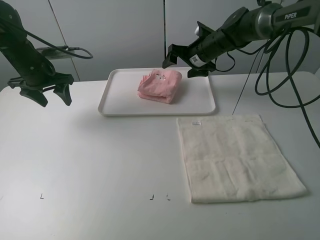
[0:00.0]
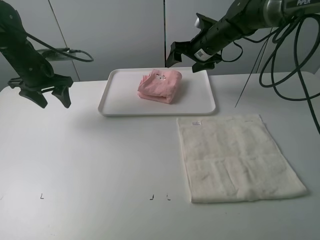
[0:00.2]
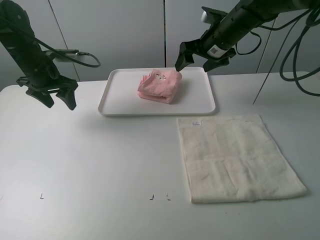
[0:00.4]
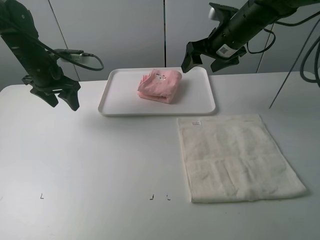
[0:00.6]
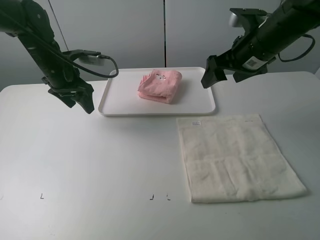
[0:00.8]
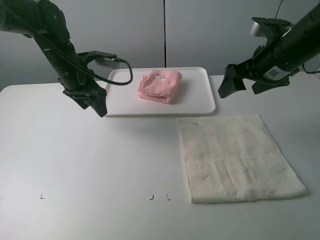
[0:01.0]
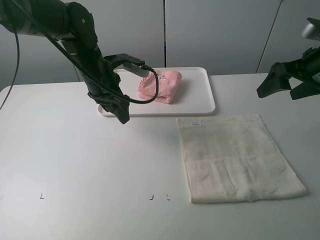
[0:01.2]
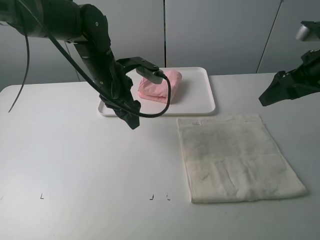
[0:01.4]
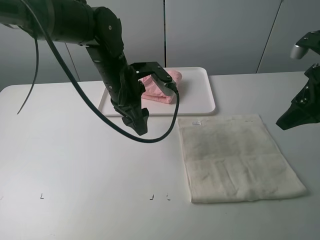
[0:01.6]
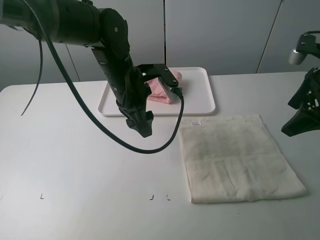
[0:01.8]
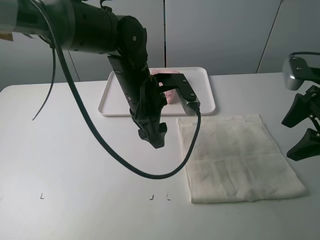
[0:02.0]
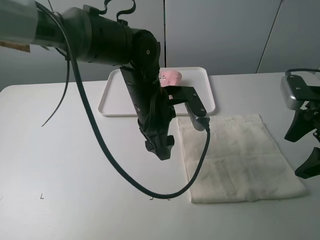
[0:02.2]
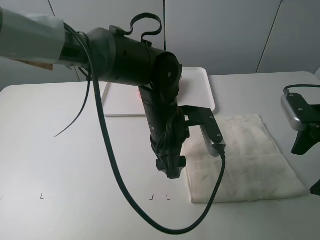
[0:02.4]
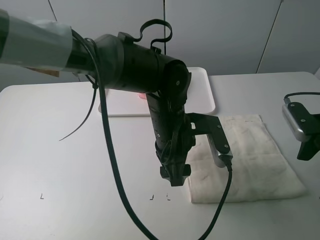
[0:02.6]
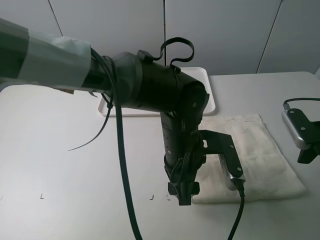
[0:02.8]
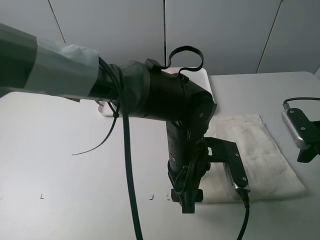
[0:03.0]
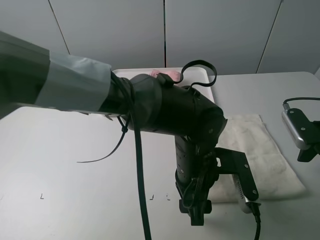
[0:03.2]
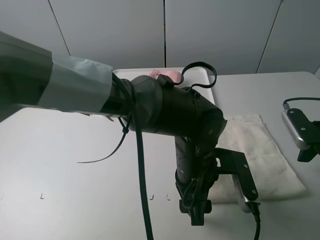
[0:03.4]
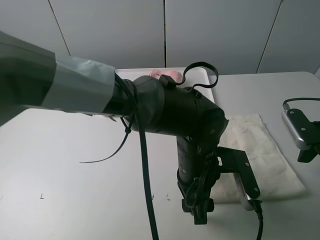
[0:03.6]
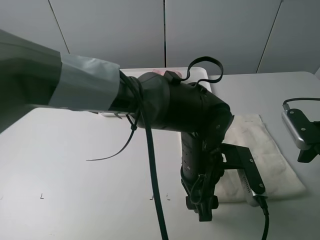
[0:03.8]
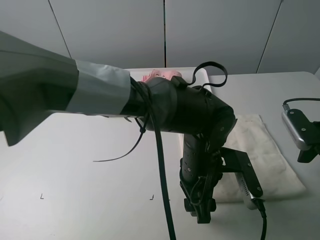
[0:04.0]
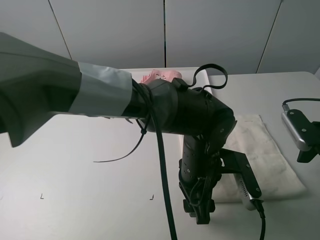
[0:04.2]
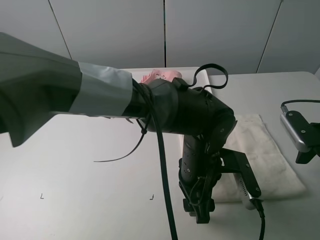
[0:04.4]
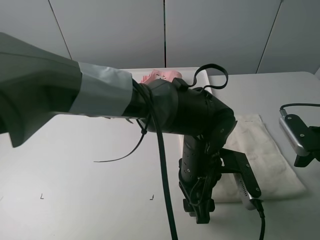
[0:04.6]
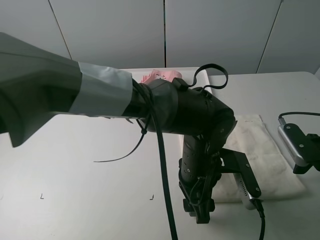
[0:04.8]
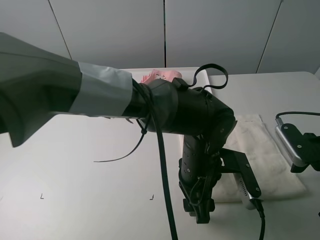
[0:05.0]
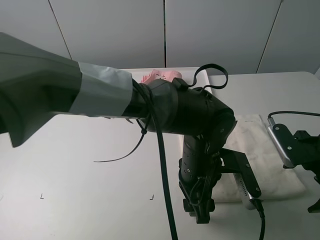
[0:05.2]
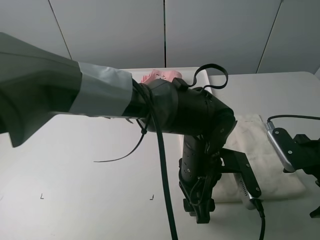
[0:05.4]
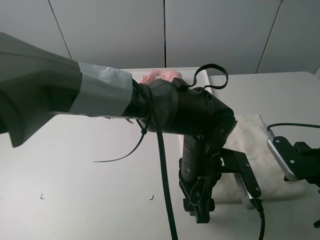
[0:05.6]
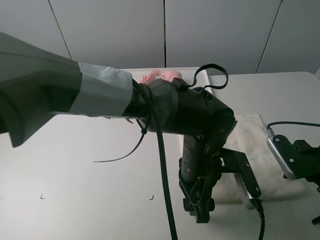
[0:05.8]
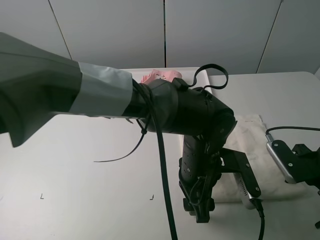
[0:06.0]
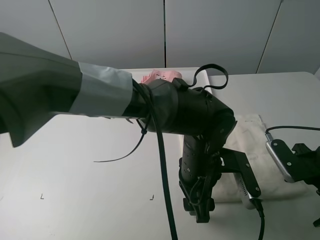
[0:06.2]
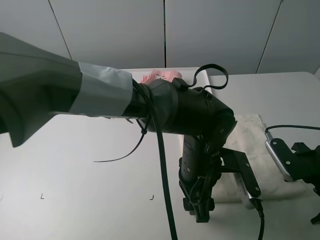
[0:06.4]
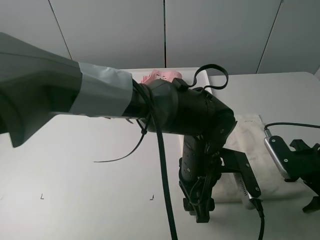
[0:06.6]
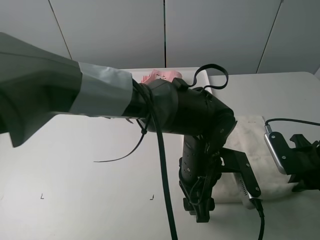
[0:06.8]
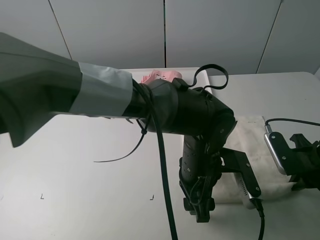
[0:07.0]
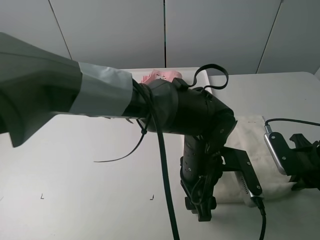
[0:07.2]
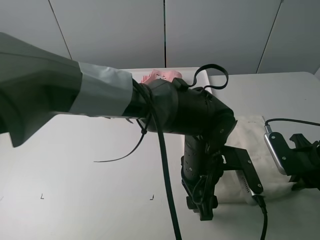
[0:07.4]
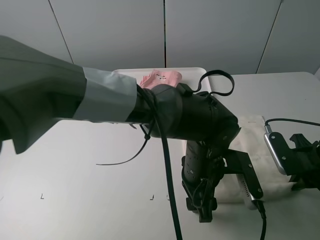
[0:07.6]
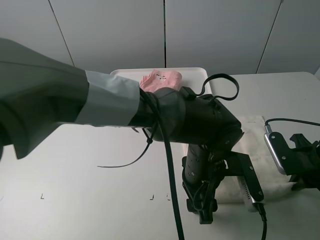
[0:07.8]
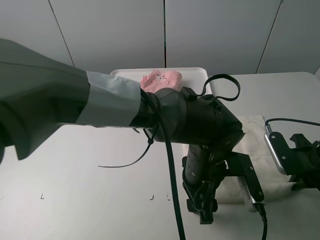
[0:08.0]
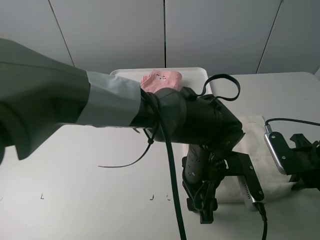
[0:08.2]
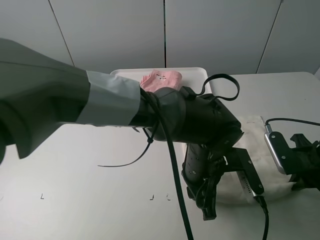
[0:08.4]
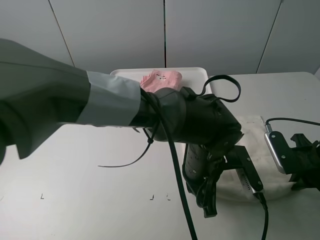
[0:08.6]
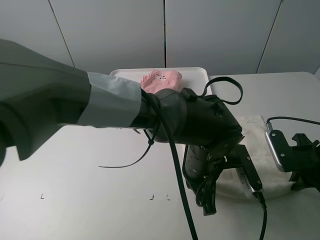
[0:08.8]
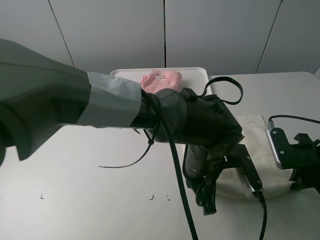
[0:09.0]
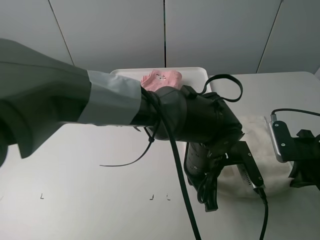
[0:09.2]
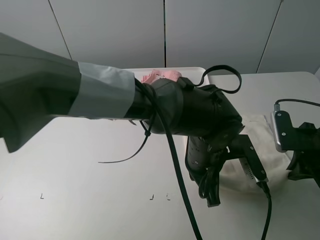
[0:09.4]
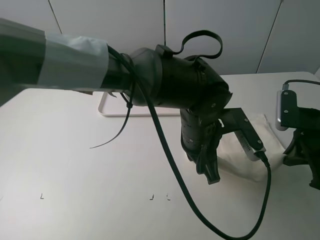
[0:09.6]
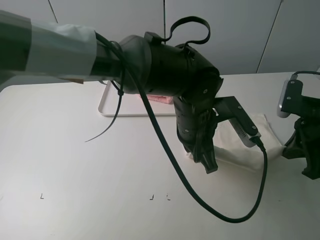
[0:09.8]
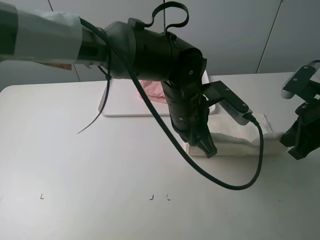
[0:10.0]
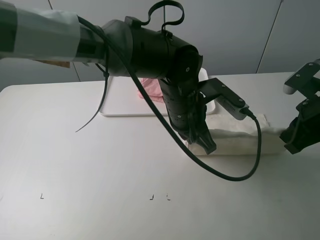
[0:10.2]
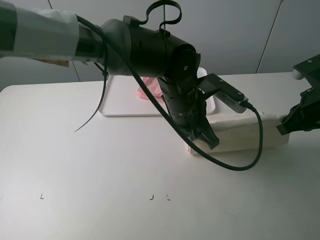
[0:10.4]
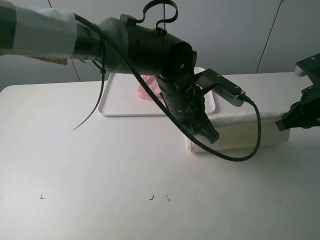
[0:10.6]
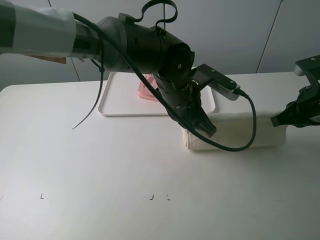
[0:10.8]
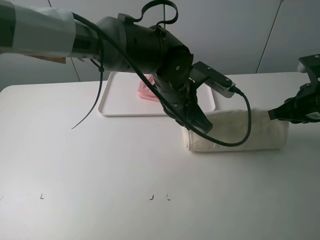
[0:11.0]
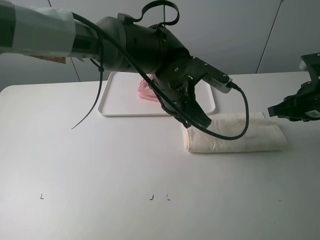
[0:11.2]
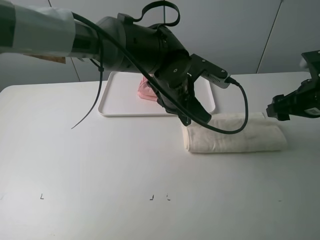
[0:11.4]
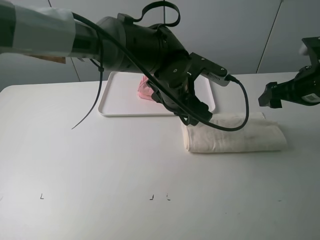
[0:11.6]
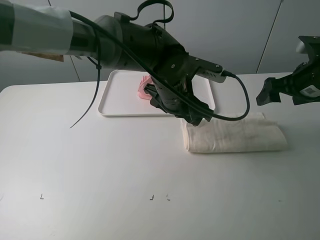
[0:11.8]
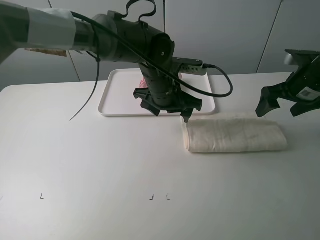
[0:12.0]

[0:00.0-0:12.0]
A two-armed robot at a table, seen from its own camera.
Task of the whole recording: fold one of the towels by two grippers and place it on the tray,then fold another towel by two grippers and place it on the folded towel.
Step, 0.0 to 8.0 s: Grasp the white towel with the left gripper.
Step, 8.4 to 11.4 s: Fold the white towel upwards with the left gripper.
0.0 to 1.6 s: The right gripper moves backward and to the right, some 30 cm. Meanwhile the left gripper heads to the right, covering some 20 cm.
1.6 to 3.0 s: The left gripper moves backward, to the right and downward, about 20 cm, while the right gripper heads downward and backward, covering some 10 cm.
4.4 to 6.0 s: The grippers stay close to where they were, moving slightly.
6.0 to 7.6 s: The right gripper closes its fingers.
7.6 to 9.0 s: The left gripper closes its fingers.
9.0 to 10.4 s: The left gripper is displaced forward and upward by approximately 10 cm. The right gripper heads upward and forward, covering approximately 10 cm.
10.4 to 12.0 s: The grippers both shift forward by some 5 cm. The left gripper opens. Meanwhile the right gripper opens.

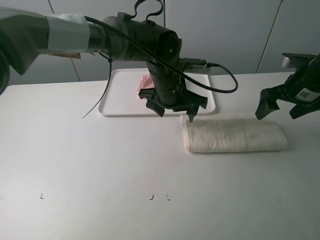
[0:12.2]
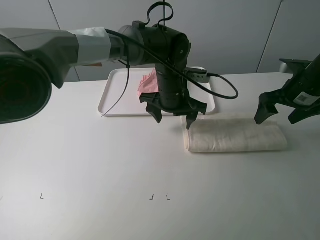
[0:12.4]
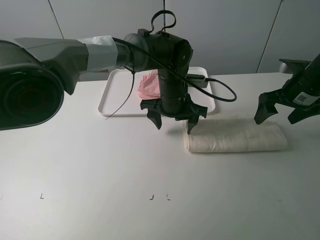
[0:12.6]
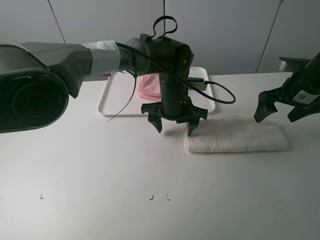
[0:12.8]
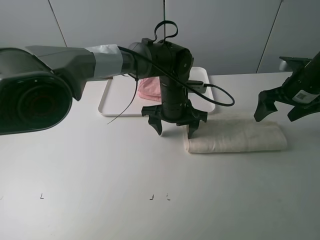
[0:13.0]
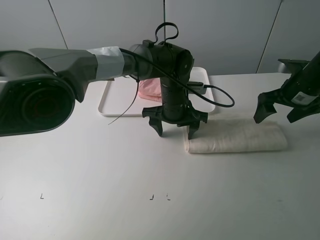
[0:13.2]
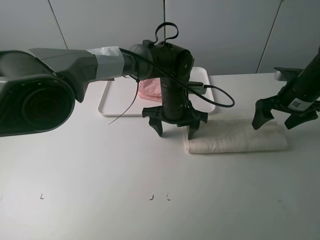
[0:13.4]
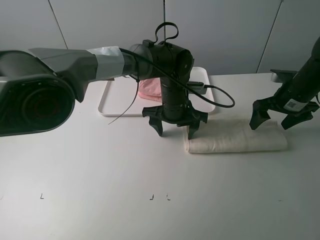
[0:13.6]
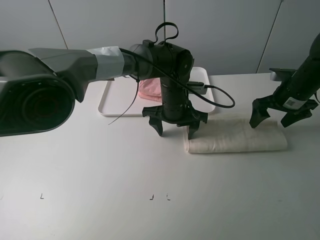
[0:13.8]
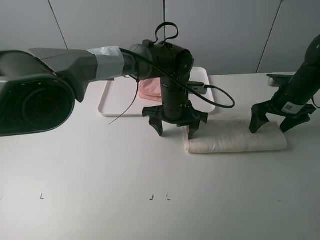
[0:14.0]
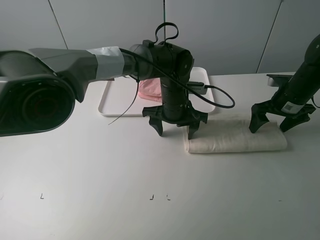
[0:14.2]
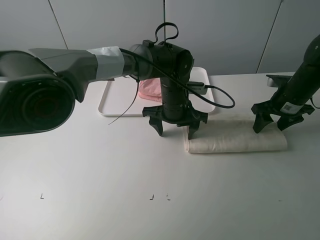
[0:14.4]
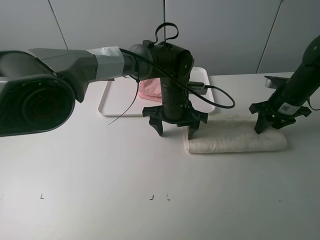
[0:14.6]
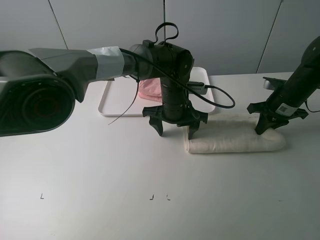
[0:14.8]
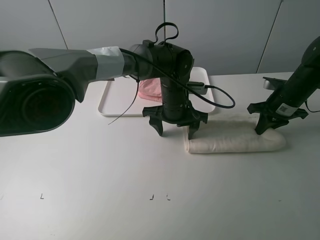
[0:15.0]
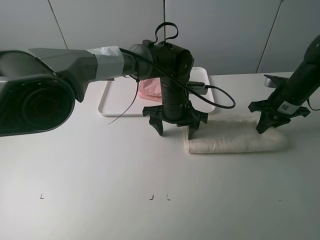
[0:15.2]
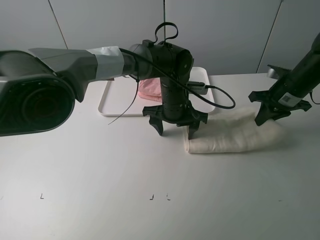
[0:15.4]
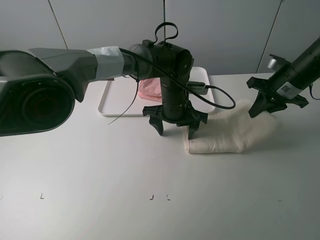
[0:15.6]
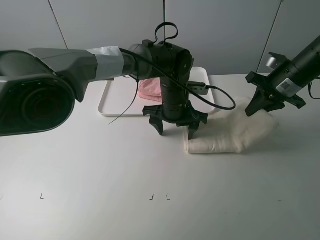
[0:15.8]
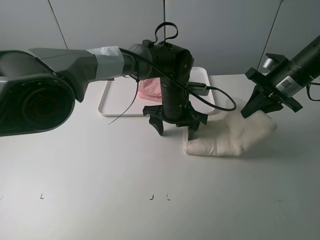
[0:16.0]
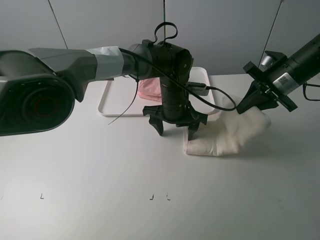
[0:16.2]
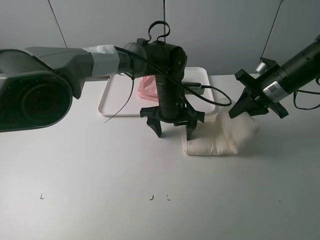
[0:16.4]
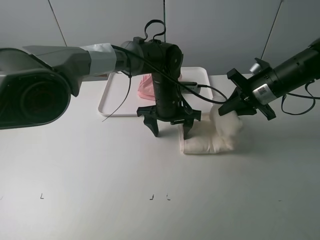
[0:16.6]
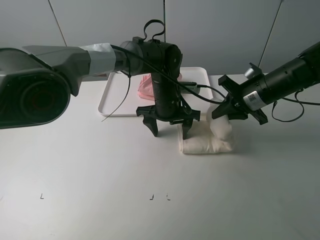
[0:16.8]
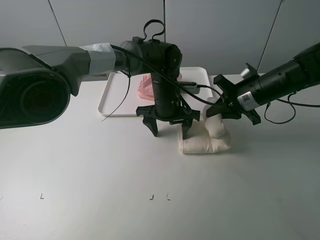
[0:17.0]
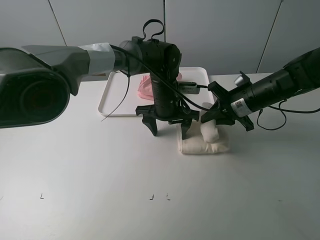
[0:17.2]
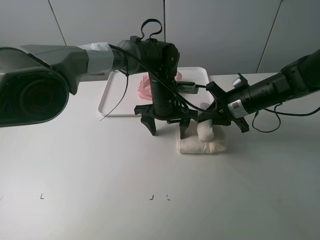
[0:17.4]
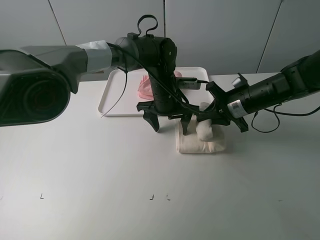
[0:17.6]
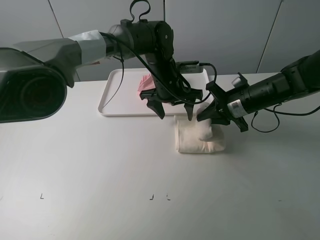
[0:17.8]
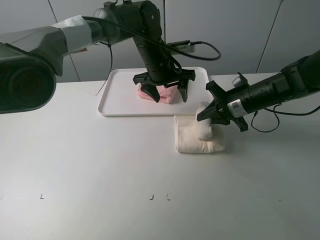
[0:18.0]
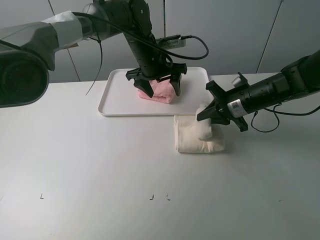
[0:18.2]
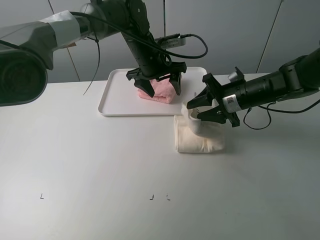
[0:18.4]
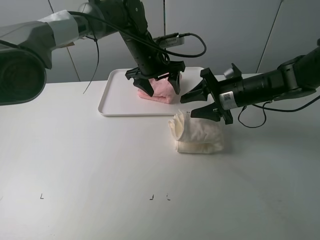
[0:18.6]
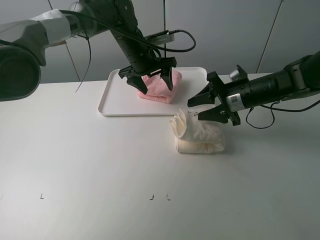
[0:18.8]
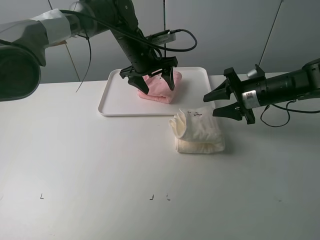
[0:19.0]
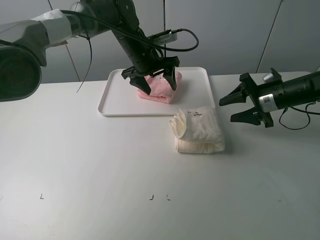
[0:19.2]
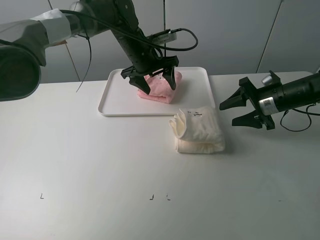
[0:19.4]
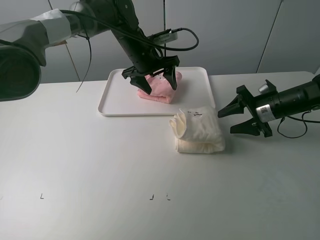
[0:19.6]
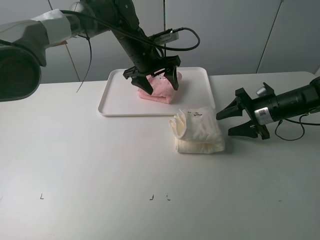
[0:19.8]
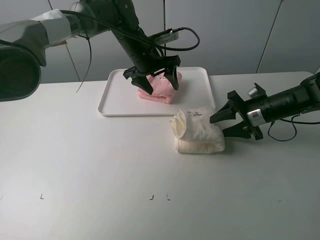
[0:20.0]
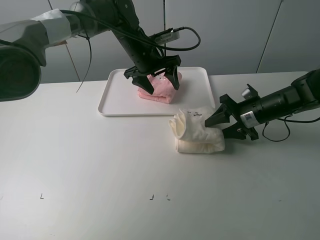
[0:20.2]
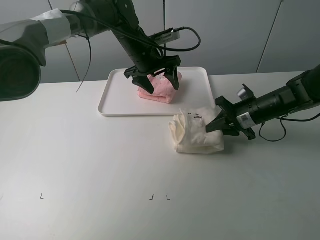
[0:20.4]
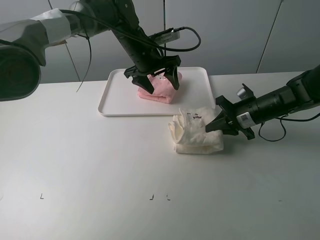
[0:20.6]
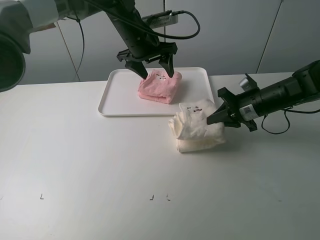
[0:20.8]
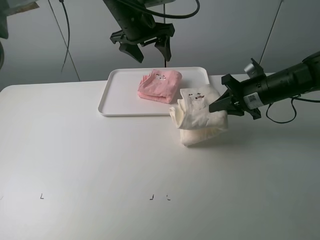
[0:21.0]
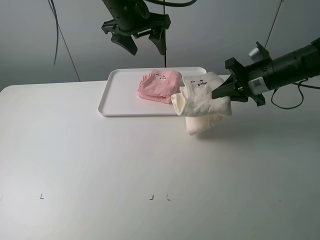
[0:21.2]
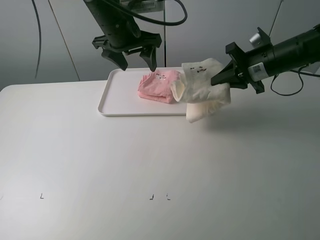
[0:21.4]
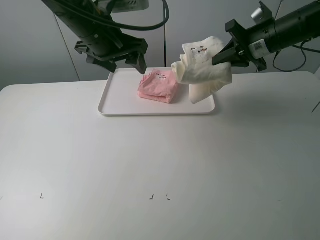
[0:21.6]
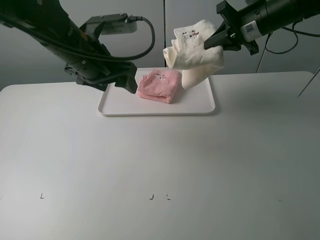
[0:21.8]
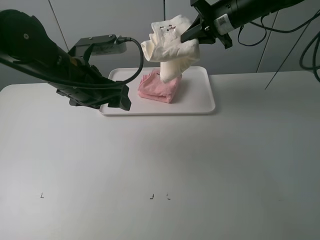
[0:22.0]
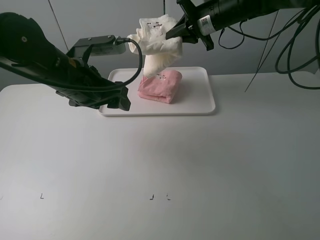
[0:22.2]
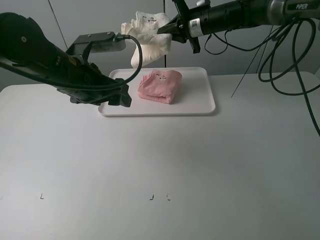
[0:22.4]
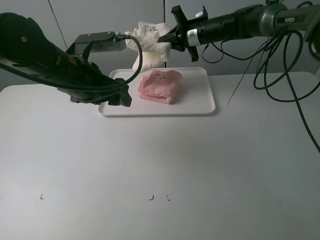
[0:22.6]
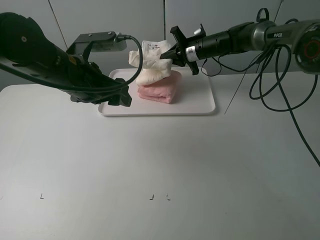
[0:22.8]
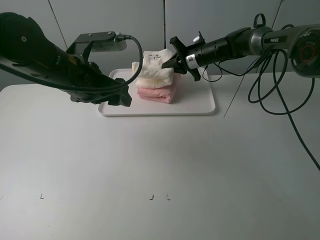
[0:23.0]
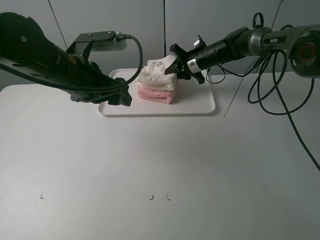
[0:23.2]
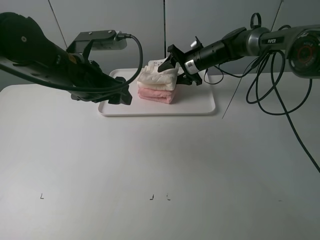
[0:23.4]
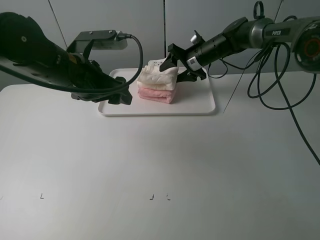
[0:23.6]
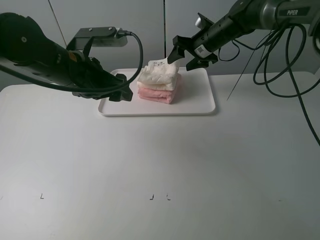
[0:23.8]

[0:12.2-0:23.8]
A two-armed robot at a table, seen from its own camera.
Task of the whole recording: fold one of the towels by two grippers and place it on the tray,then fold another towel by two grippers and place it on the folded towel.
Step, 12.2 to 13.2 s: Press the white towel with the left gripper.
Step, 13.4 to 14.8 s: Grasp the white towel with the right gripper.
Step, 15.0 to 18.6 s: Fold the white towel from right to left with right gripper.
Step, 18.8 to 20.4 s: Grasp the white towel with the right gripper.
Step, 20.6 to 23.8 s: Place the white towel on the pink towel with the right gripper.
12.2 to 13.6 s: The left gripper moves some 5 cm.
13.6 to 15.0 s: The right gripper closes.
15.0 to 16.6 s: The right gripper heads to the left and upward, covering some 10 cm.
16.6 to 18.0 s: The left gripper moves upward and forward, about 10 cm. The right gripper ends up some 5 cm from where it was.
18.0 to 19.4 s: The right gripper shifts roughly 5 cm to the right, and opens up.
19.4 to 21.0 s: The right gripper moves approximately 5 cm, and closes up, while the left gripper goes some 10 cm upward.
21.0 to 22.4 s: The left gripper goes approximately 20 cm backward, to the left and downward, while the right gripper shifts approximately 20 cm forward and to the left.
22.4 to 23.8 s: The right gripper reaches roughly 10 cm downward, then returns, and opens its fingers.
